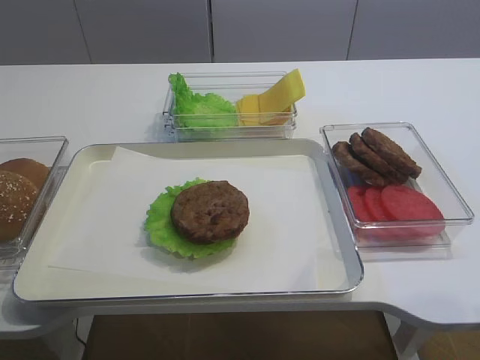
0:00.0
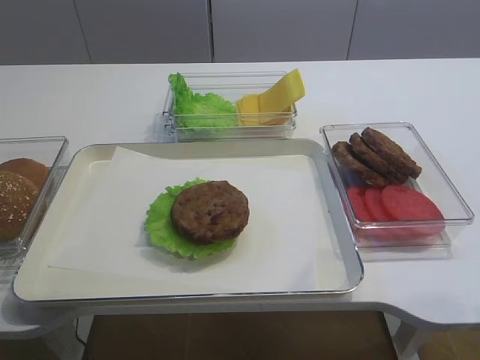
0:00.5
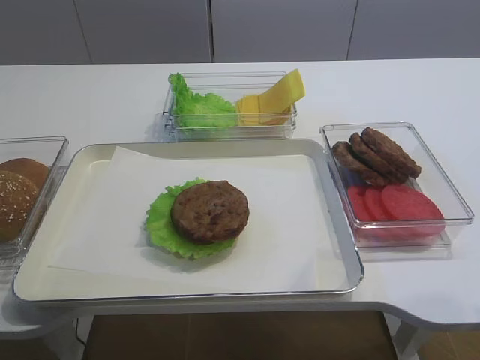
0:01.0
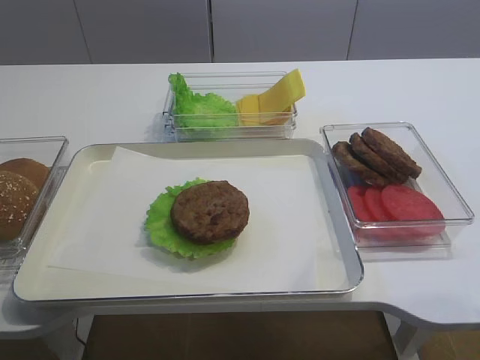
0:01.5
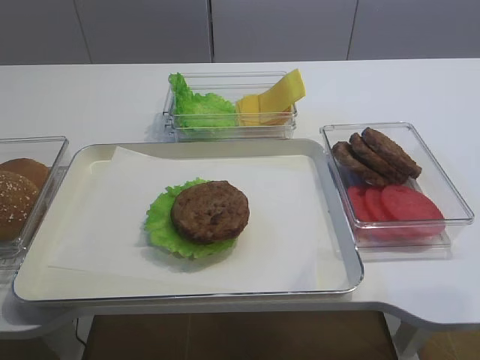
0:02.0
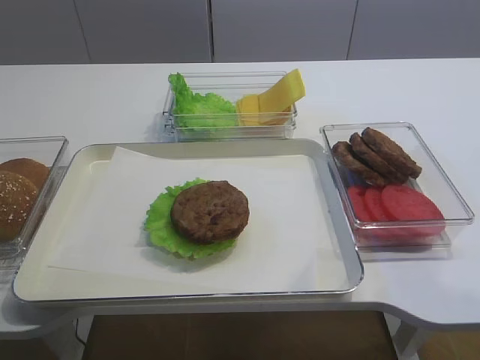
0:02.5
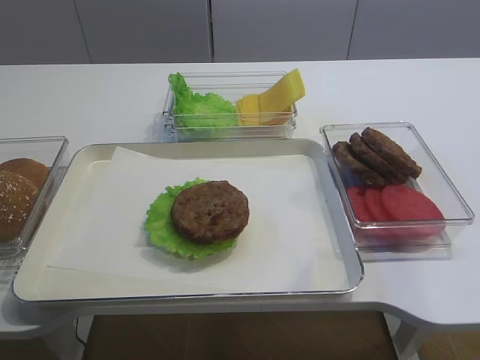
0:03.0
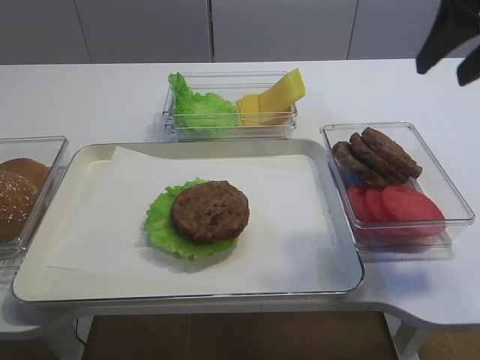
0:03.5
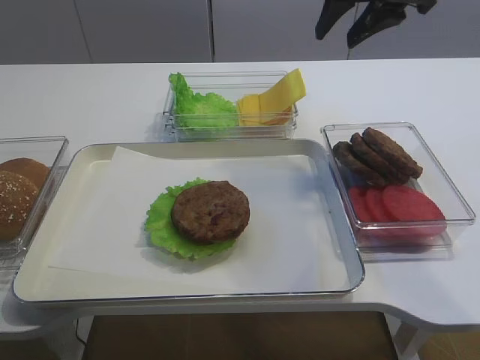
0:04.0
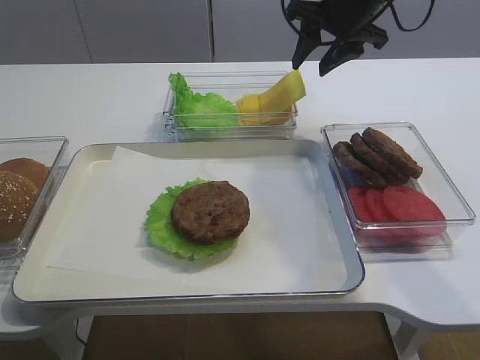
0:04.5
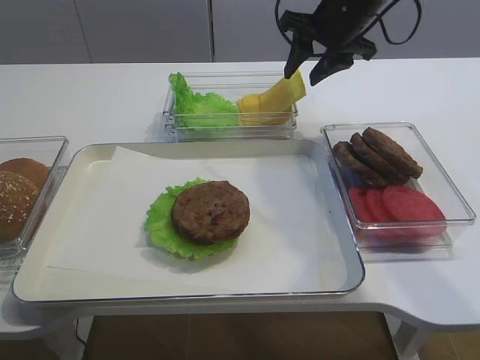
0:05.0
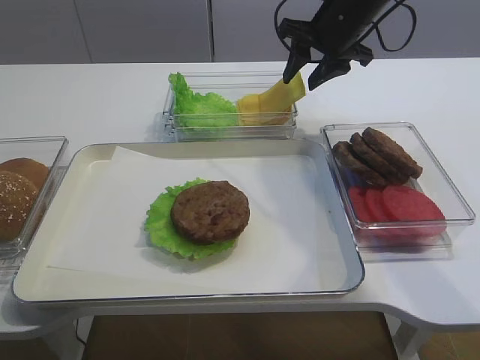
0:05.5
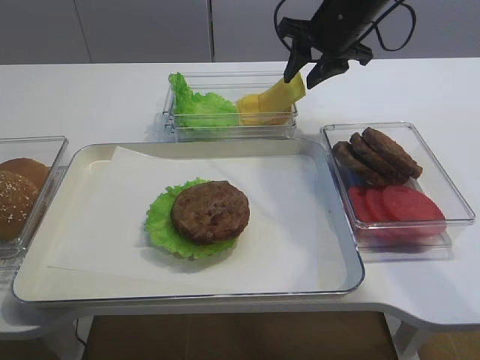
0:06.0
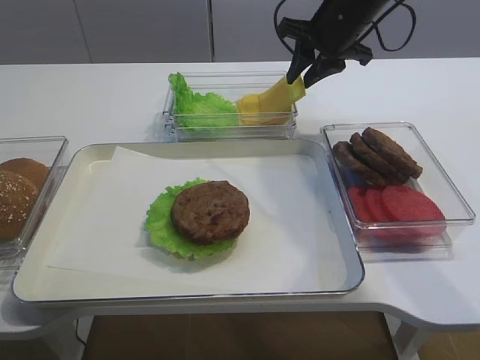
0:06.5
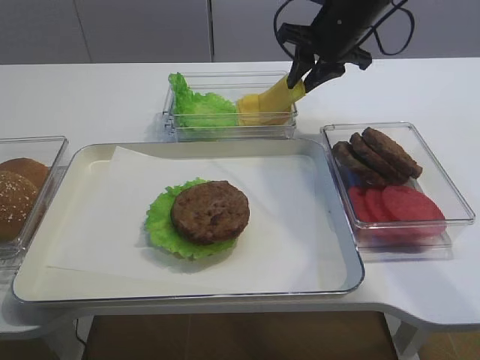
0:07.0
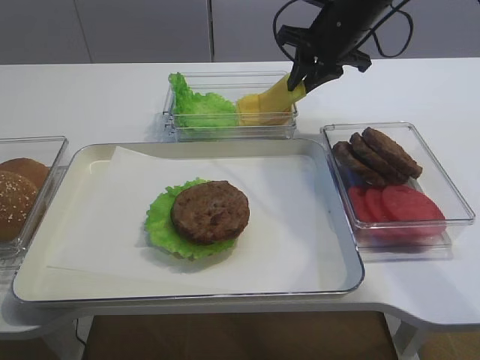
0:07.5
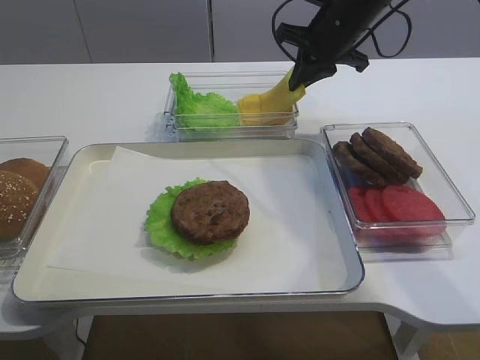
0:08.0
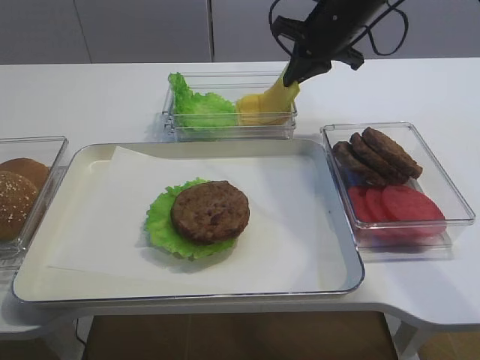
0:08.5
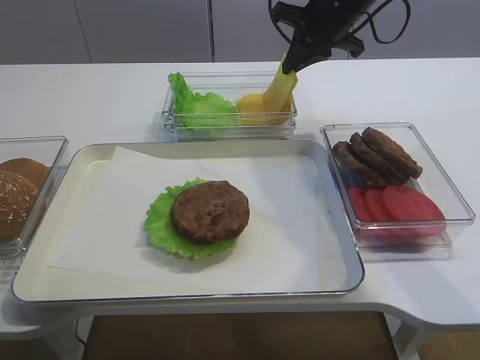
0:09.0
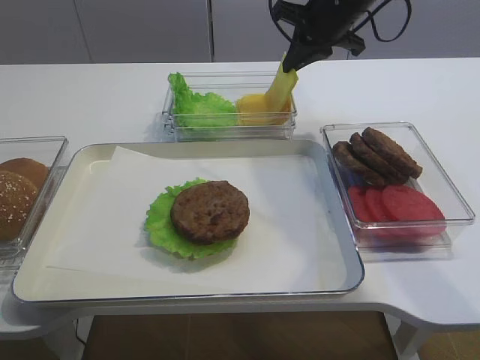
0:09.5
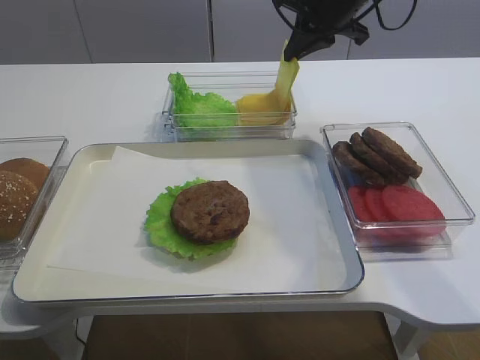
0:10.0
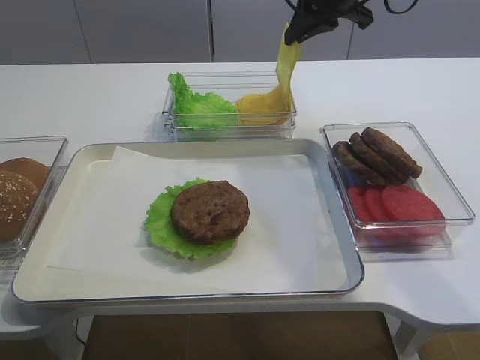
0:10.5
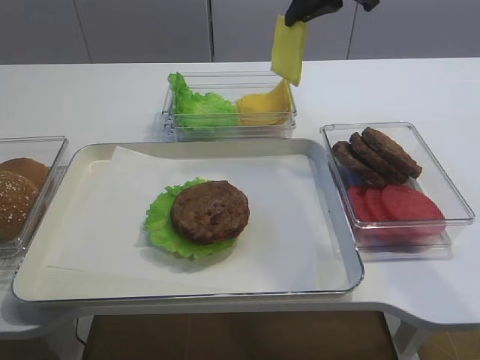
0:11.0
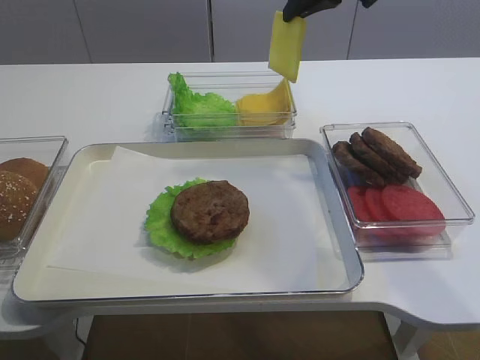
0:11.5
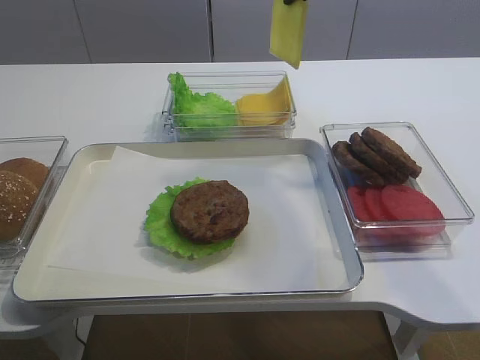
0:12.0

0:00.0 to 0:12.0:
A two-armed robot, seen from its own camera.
Step, 0:00.0 to 0:09.0: Pick up the cheese slice with the right gripper.
0:02.0 to 0:04.0: The right gripper is displaced forward by approximately 40 cm.
0:04.0 to 0:06.0: The right gripper moves downward and forward, approximately 10 cm.
0:06.0 to 0:08.0: The right gripper closes.
0:08.0 to 0:10.0: The grippers stay close to where they were, moving slightly.
0:10.0 to 0:12.0: The right gripper shifts approximately 10 cm upward.

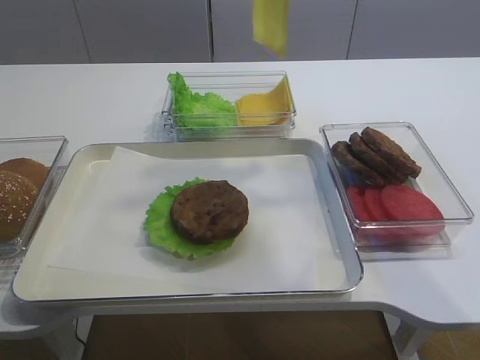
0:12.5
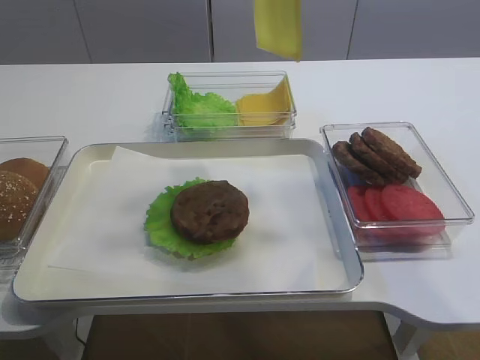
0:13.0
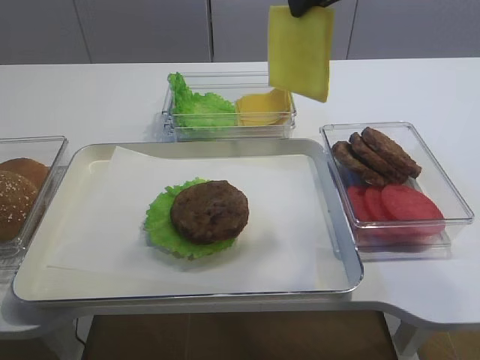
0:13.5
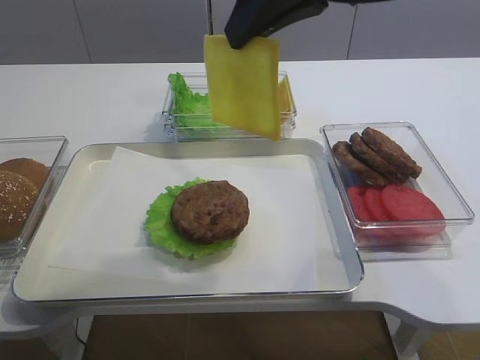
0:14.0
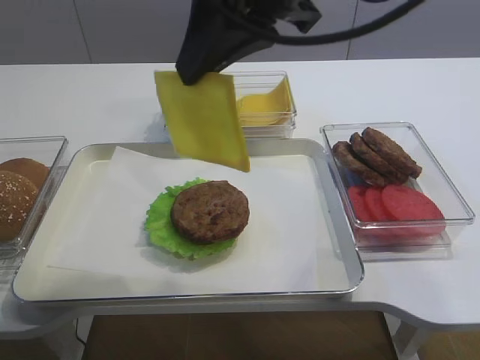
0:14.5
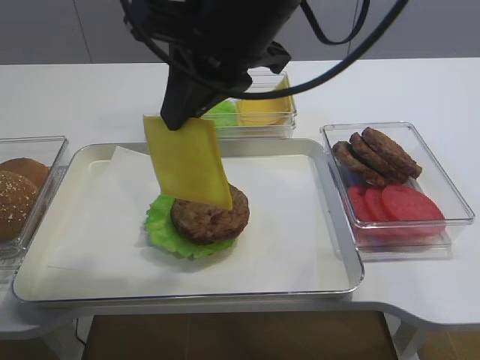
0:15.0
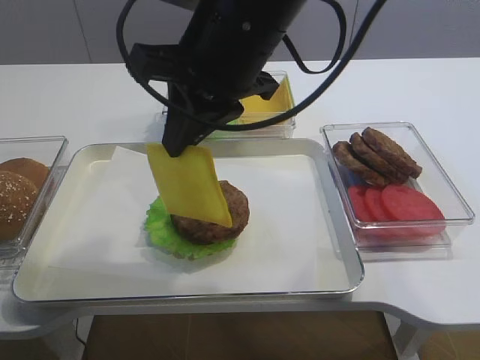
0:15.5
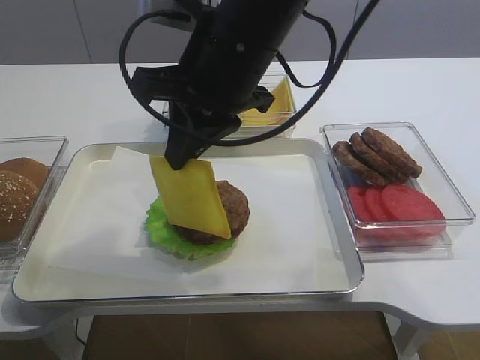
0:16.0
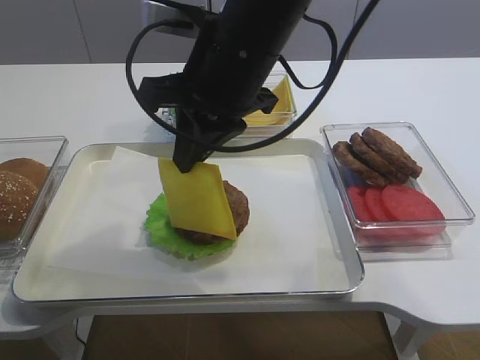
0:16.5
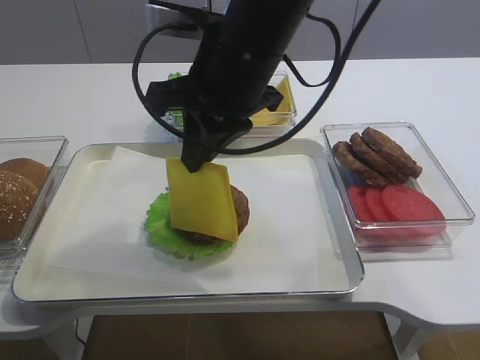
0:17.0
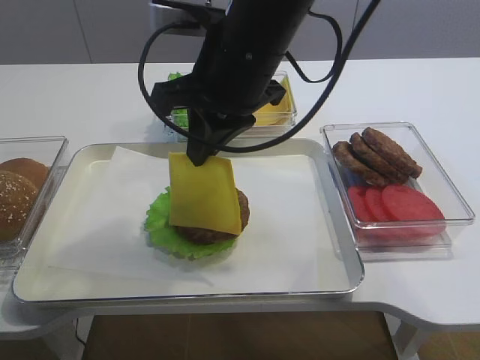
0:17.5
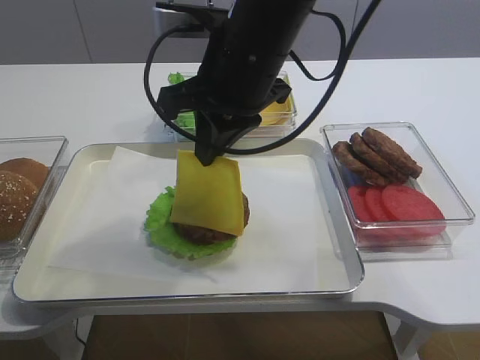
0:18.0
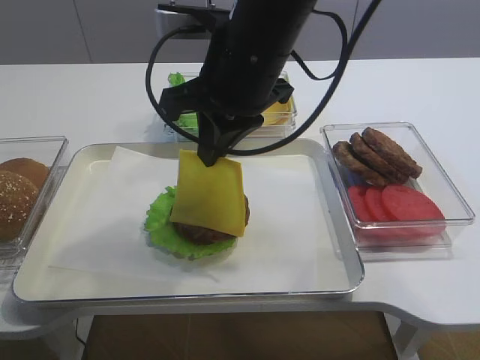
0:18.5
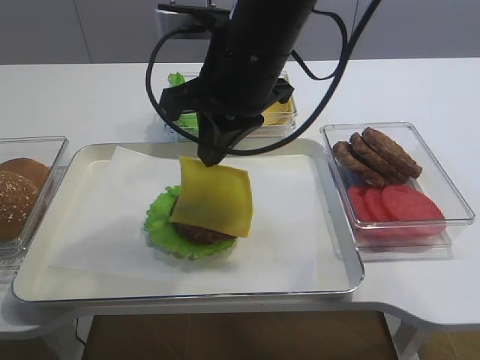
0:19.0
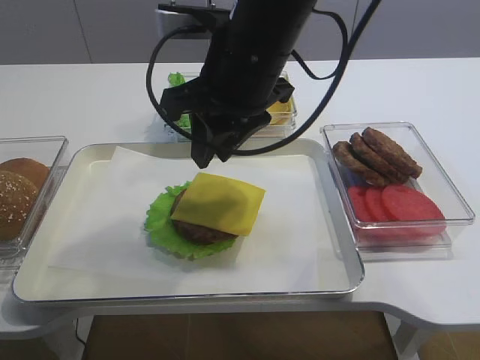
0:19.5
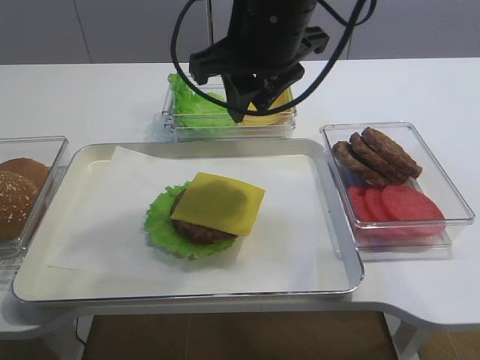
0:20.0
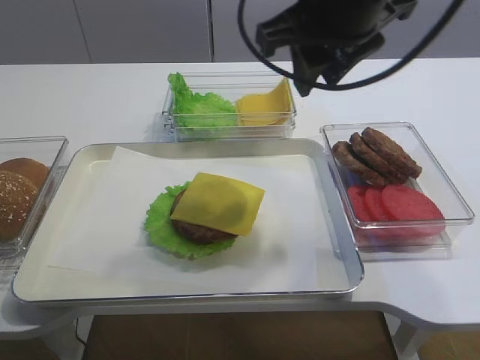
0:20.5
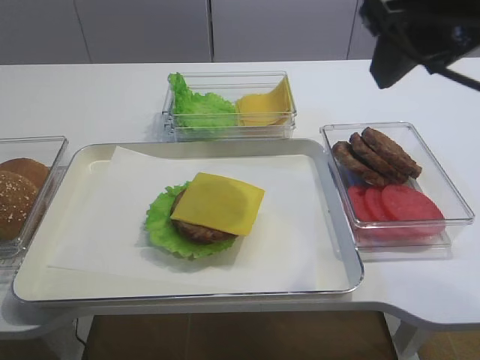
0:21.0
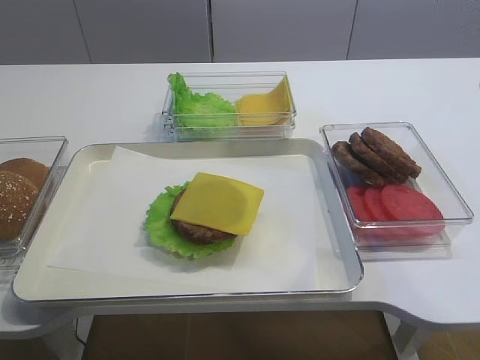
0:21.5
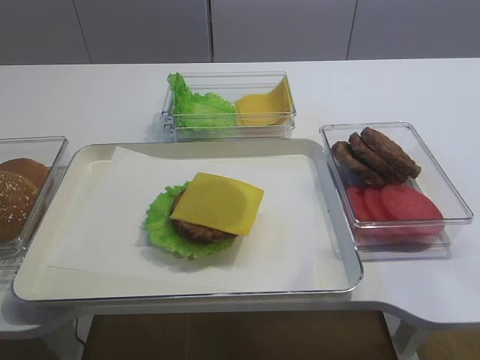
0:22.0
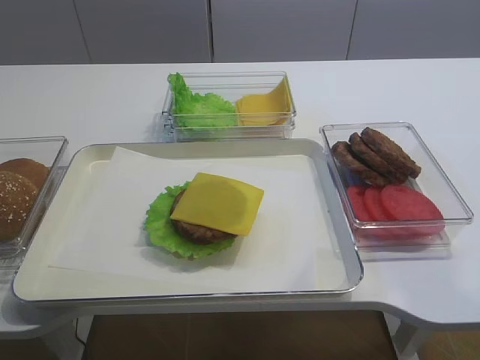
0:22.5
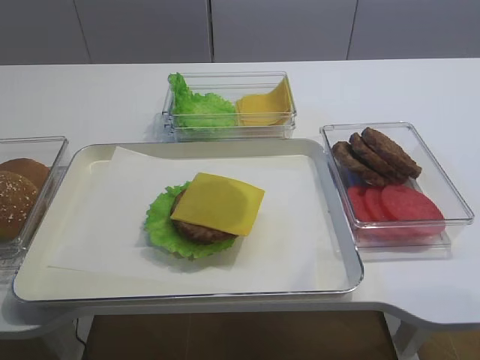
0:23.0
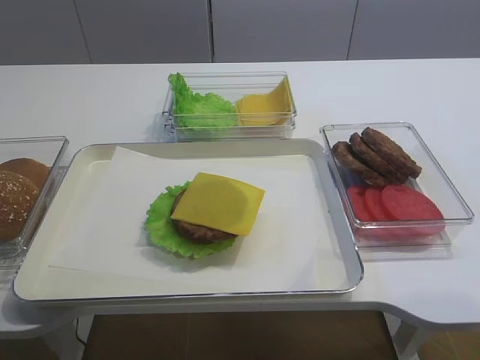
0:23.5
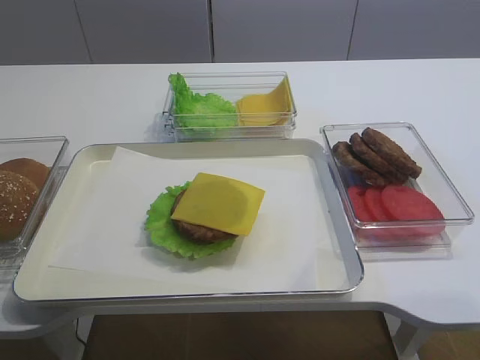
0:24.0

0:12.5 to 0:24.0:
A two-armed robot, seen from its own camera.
Step, 0:12.5 to 0:19.0: Place the cheese slice on the cutlet with the right gripper.
0:12.5 to 0:14.5: The right gripper moves backward and to the left, approximately 20 cm.
0:14.5 to 0:16.5: The right gripper shifts about 10 cm downward.
0:16.5 to 0:18.5: The grippers make only small movements.
0:18.5 to 0:20.0: The right gripper opens its fingers.
0:20.0 to 0:22.0: The right gripper is displaced backward and to the right by roughly 35 cm.
0:22.0 to 0:24.0: The right gripper is displaced downward and backward by about 15 cm.

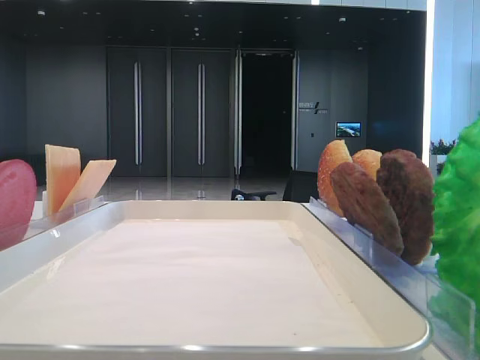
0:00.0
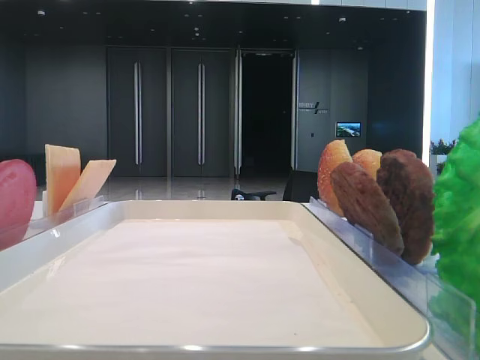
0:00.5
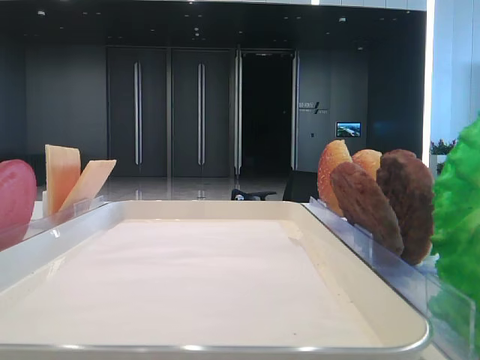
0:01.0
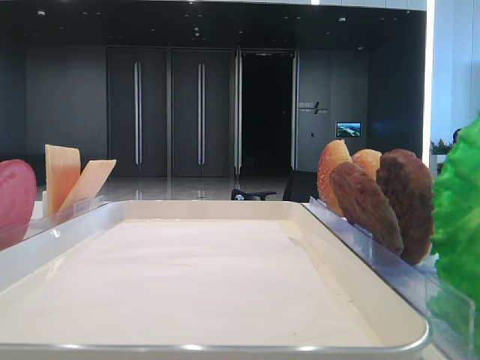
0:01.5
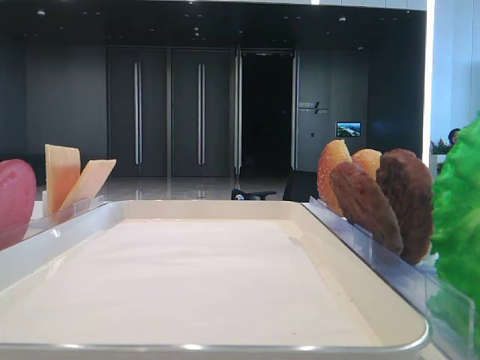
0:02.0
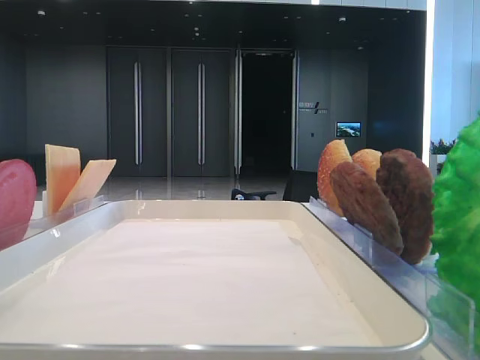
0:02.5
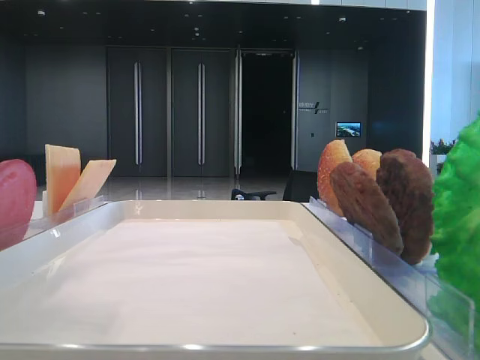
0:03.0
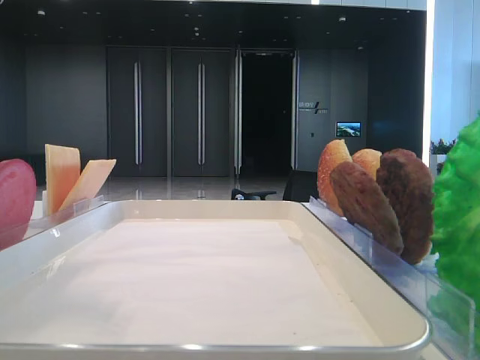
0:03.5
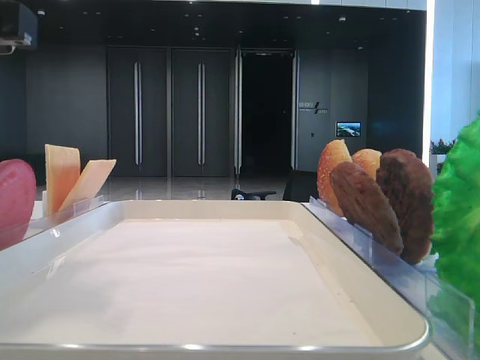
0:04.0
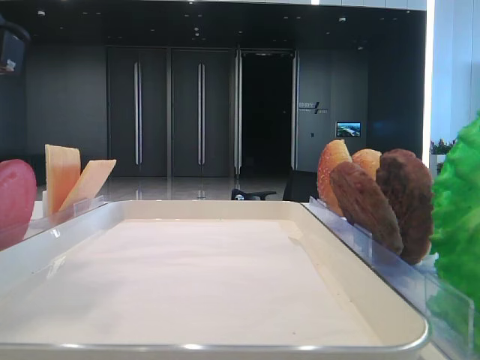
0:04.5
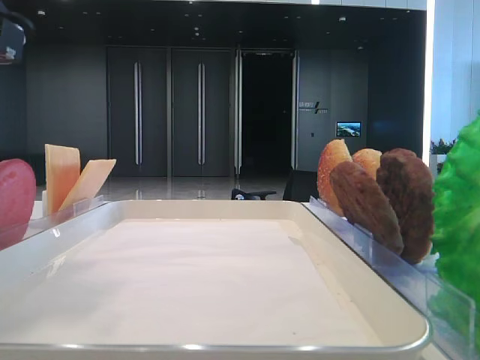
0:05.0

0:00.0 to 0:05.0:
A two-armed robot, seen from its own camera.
Step, 0:00.0 to 0:04.5: Pick up the bottom bread with the left hand.
0:02.5 to 0:05.0: The left gripper moves to the right and downward, approximately 10 cm, and closes.
